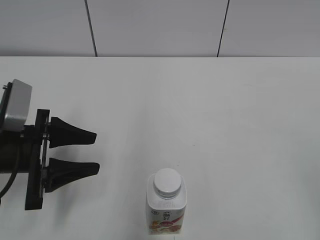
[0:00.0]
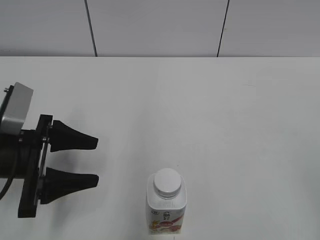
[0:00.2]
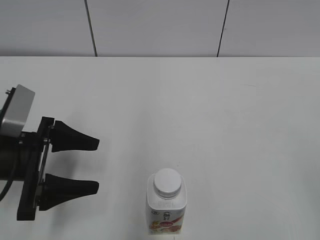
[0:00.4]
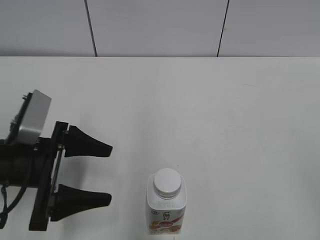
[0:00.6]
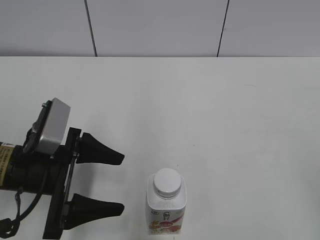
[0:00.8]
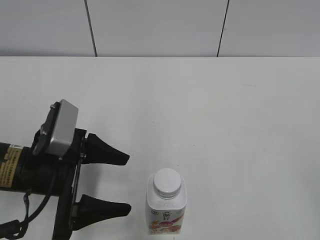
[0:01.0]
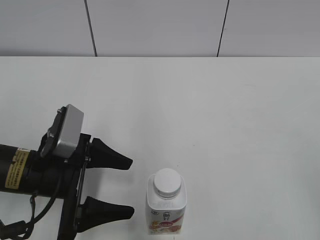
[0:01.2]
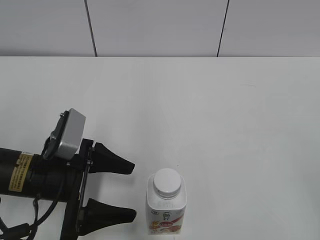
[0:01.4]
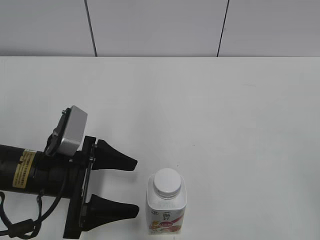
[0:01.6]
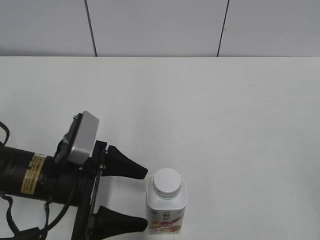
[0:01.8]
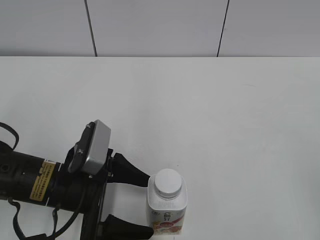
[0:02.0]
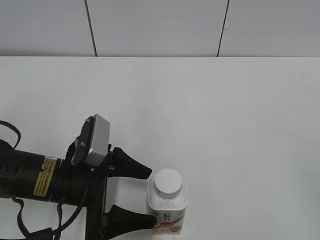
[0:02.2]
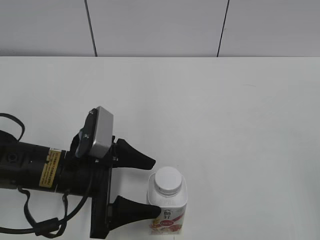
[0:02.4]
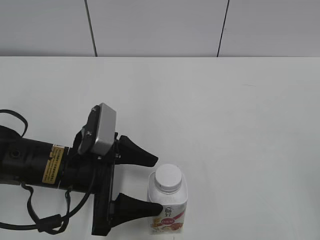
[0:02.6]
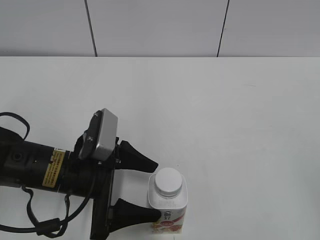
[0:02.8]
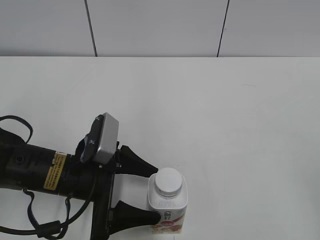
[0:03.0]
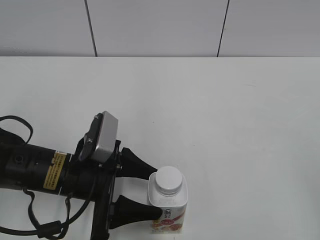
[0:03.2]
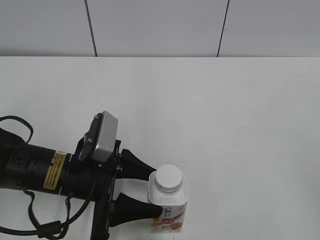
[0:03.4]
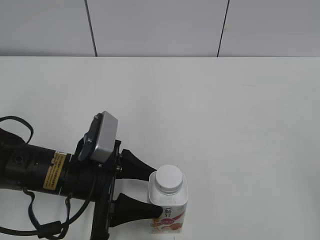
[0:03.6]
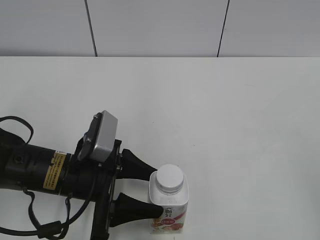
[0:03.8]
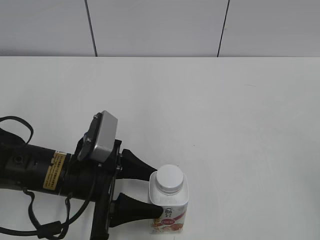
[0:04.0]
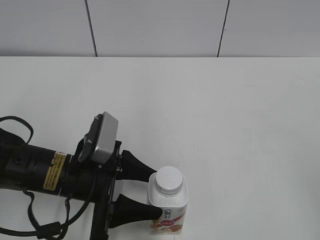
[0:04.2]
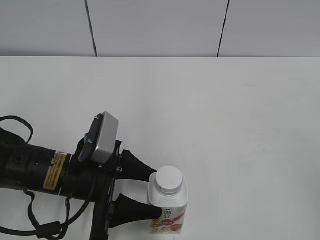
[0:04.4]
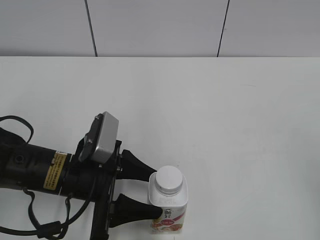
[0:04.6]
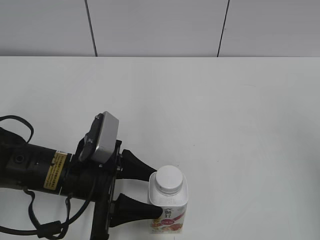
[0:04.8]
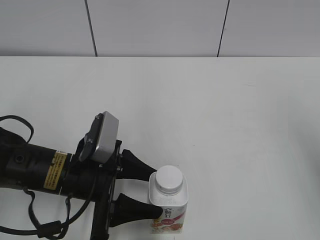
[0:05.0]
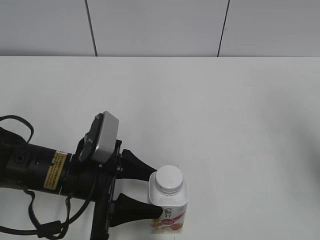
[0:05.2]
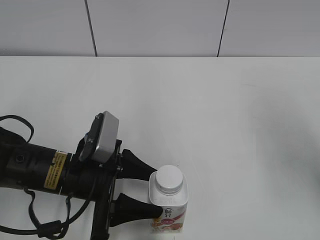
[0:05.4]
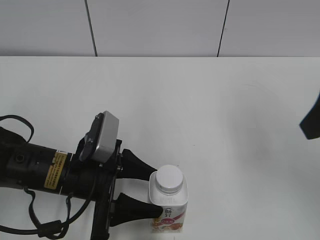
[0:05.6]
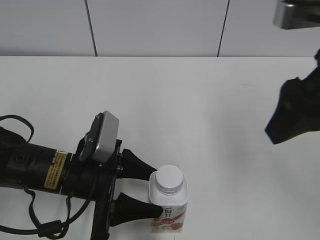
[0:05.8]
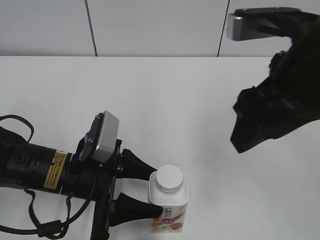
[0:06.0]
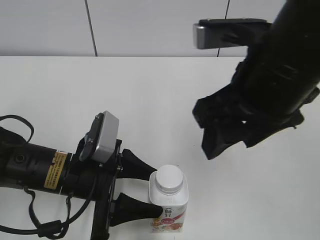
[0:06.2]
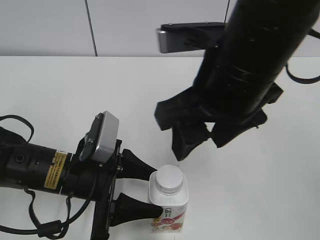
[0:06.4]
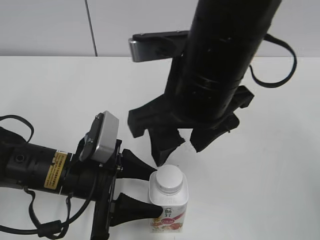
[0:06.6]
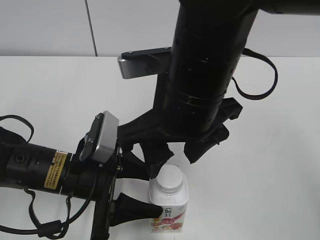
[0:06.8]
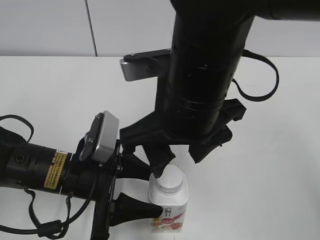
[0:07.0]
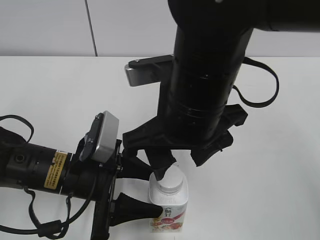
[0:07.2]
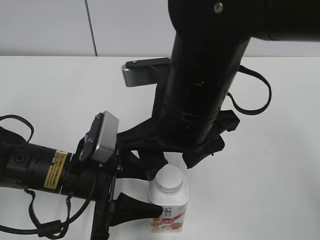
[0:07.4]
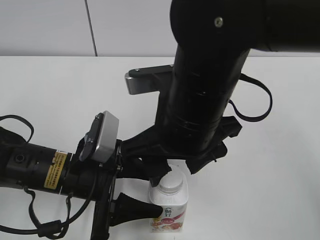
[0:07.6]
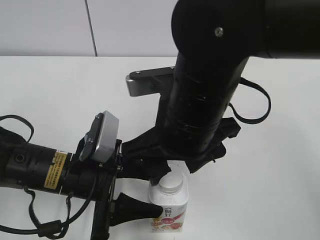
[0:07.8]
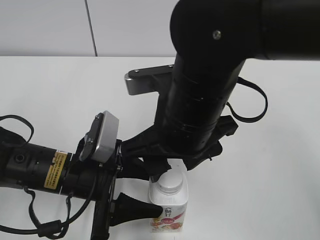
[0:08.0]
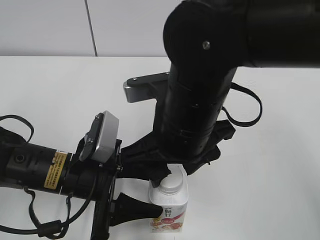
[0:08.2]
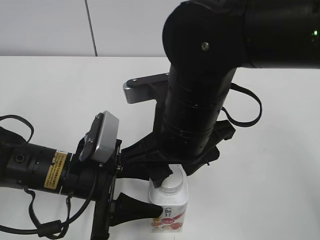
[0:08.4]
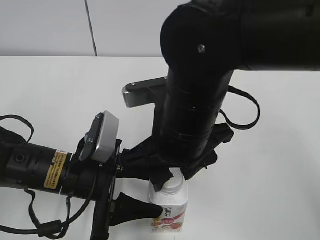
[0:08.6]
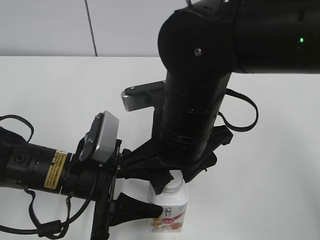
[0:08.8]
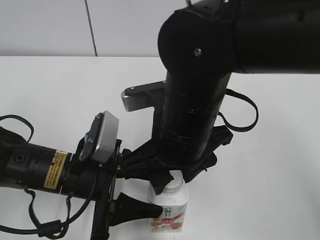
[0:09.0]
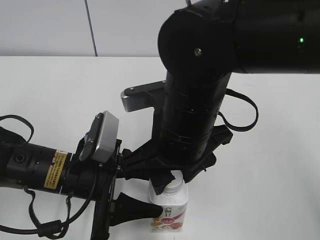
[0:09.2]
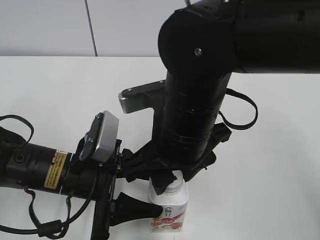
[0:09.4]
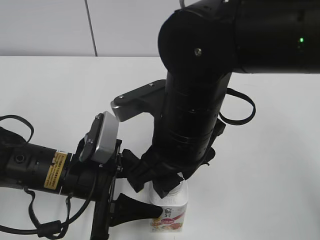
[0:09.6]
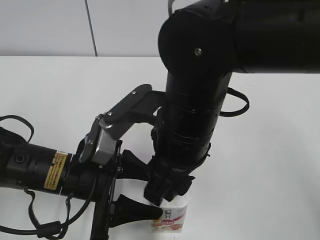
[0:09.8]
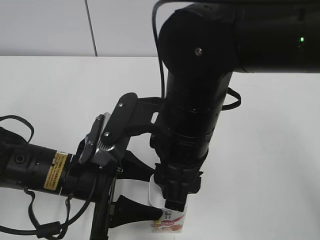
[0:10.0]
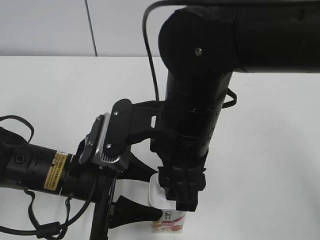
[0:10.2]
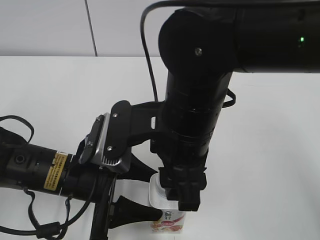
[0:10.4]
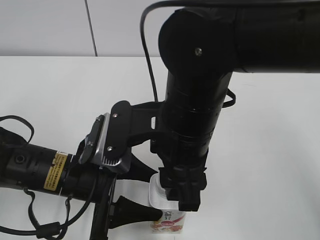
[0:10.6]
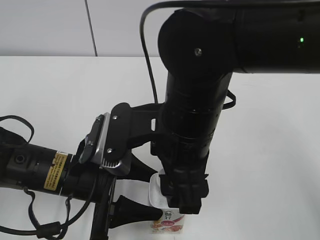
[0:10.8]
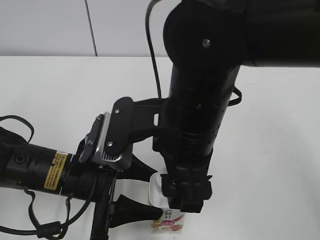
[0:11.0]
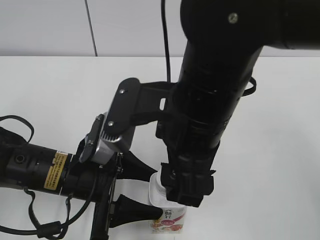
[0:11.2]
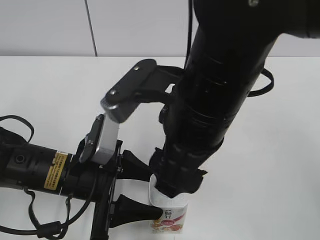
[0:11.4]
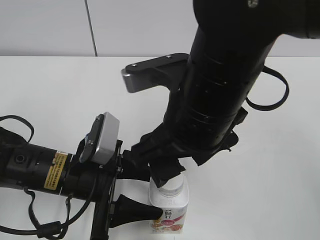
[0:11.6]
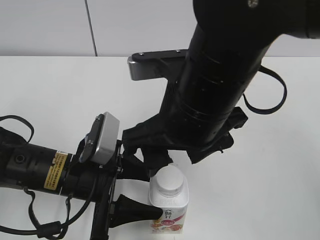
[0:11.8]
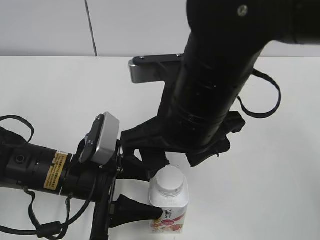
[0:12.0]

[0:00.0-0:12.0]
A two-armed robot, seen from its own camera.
Step, 0:00.0 to 0:03.6: Grab the Yili Changqing with the left hand.
0:00.0 to 0:01.6: The left gripper moves to the right, approximately 5 cm, and opens up.
0:01.6 to 0:03.0: The grippers stay close to where they were, moving slightly.
0:03.0 to 0:04.4: The left gripper closes up.
0:04.4 to 0:06.0: The right gripper moves forward and to the left, roughly 25 cm.
0:06.0 to 0:07.6: The right gripper heads to the left and downward, covering roughly 15 cm.
0:07.6 to 0:09.0: The right gripper closes its fingers.
0:10.4 to 0:12.0: The right gripper opens its fingers.

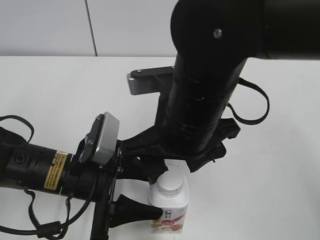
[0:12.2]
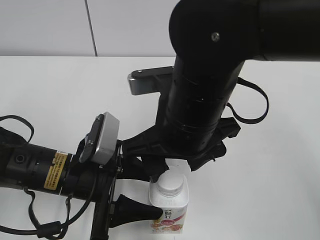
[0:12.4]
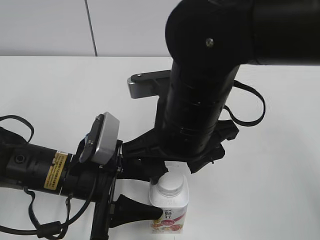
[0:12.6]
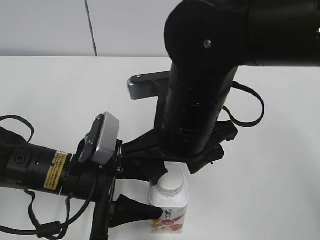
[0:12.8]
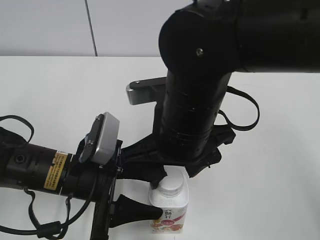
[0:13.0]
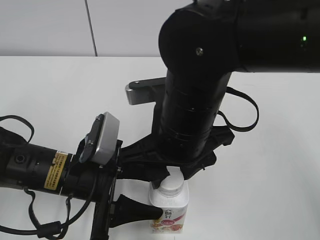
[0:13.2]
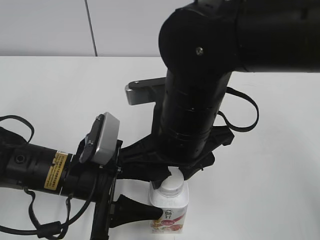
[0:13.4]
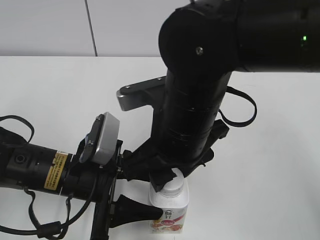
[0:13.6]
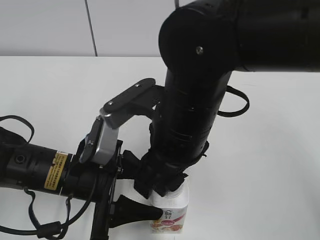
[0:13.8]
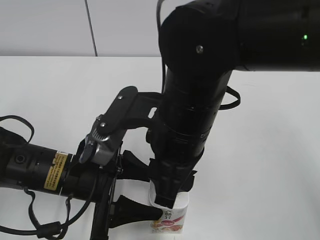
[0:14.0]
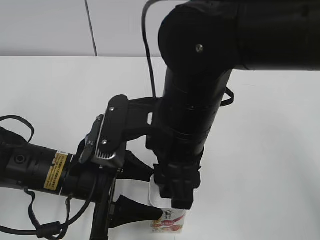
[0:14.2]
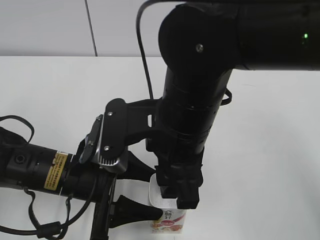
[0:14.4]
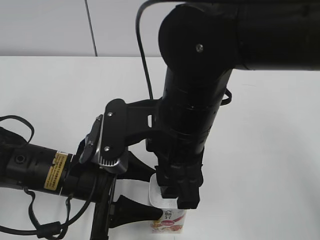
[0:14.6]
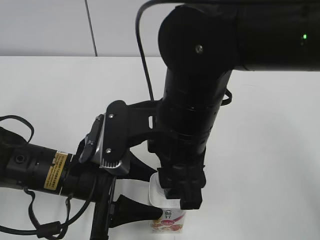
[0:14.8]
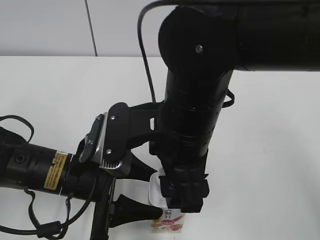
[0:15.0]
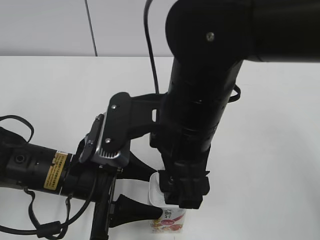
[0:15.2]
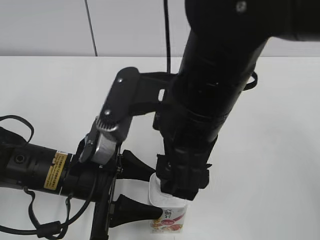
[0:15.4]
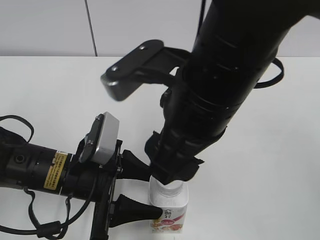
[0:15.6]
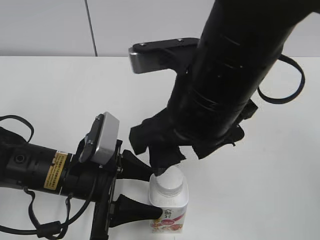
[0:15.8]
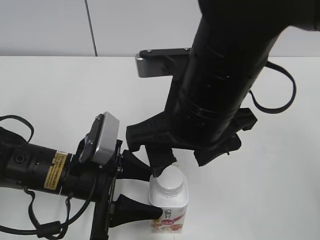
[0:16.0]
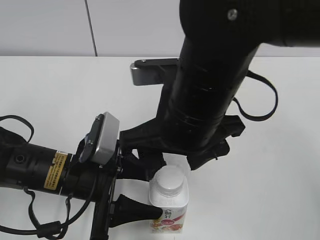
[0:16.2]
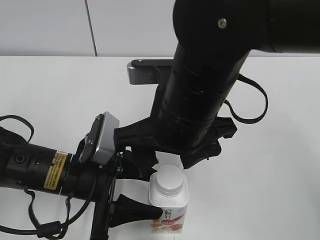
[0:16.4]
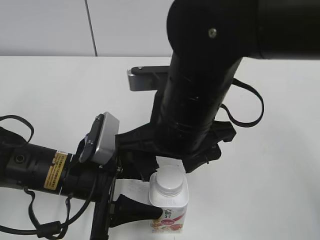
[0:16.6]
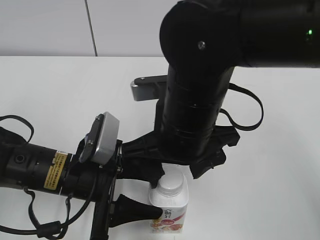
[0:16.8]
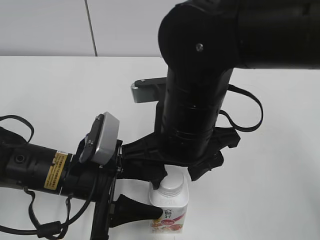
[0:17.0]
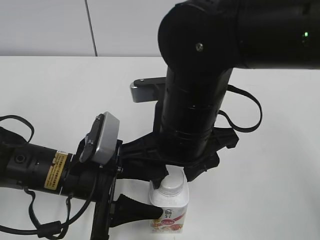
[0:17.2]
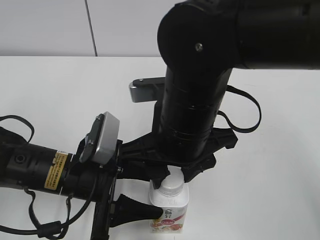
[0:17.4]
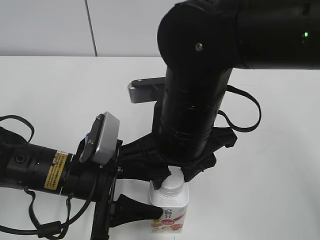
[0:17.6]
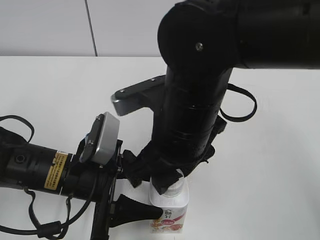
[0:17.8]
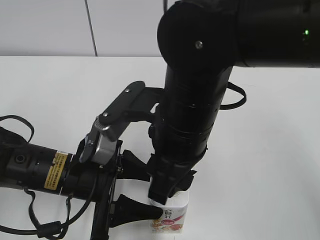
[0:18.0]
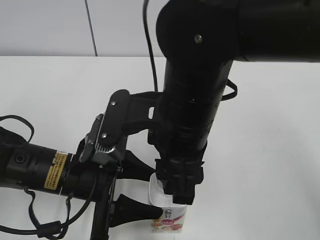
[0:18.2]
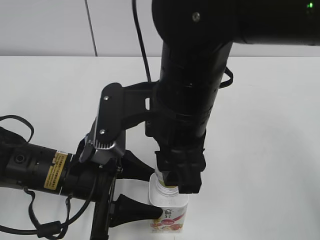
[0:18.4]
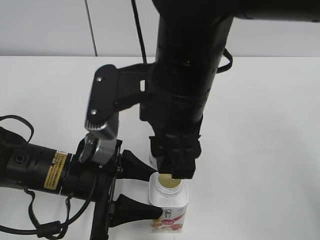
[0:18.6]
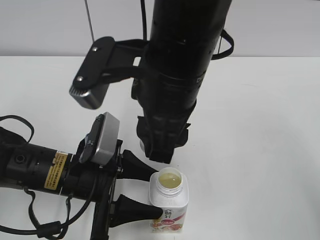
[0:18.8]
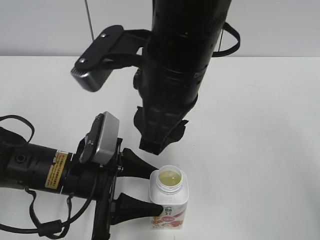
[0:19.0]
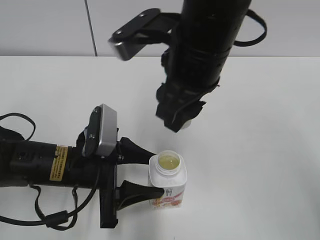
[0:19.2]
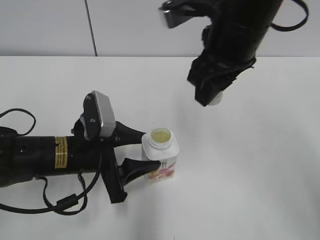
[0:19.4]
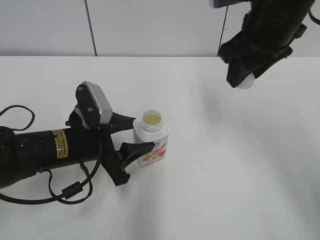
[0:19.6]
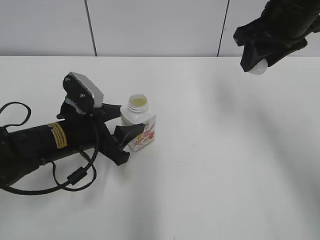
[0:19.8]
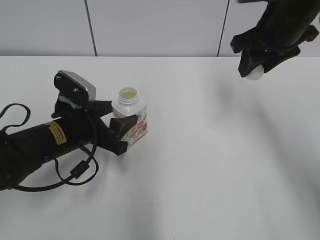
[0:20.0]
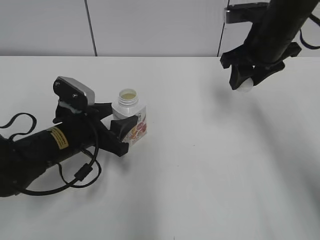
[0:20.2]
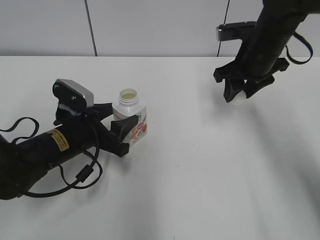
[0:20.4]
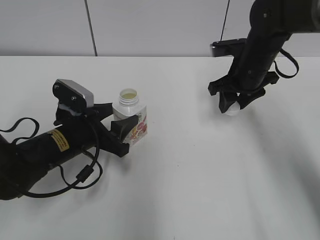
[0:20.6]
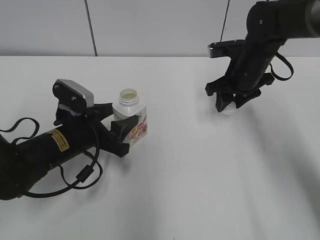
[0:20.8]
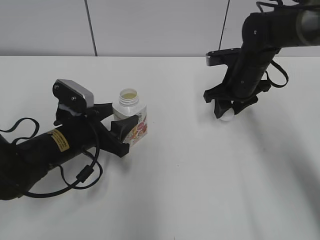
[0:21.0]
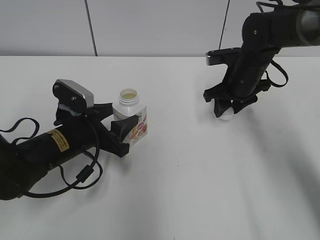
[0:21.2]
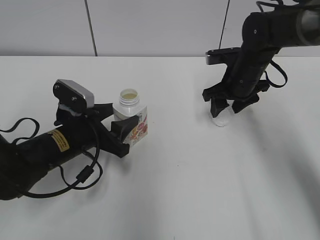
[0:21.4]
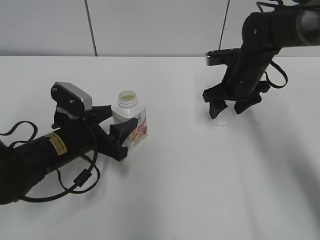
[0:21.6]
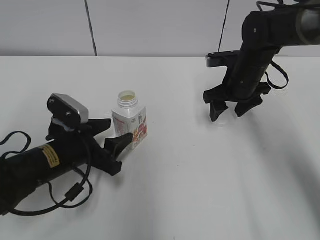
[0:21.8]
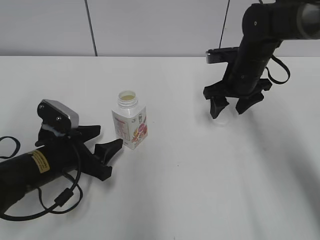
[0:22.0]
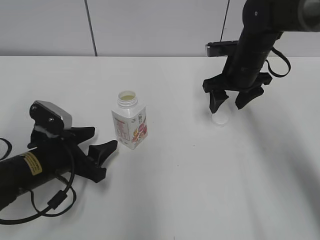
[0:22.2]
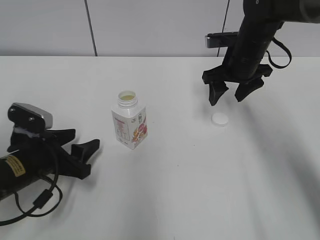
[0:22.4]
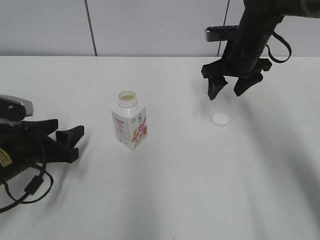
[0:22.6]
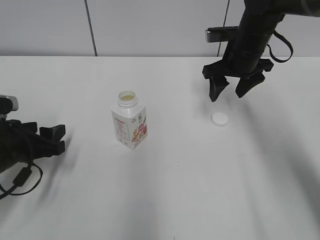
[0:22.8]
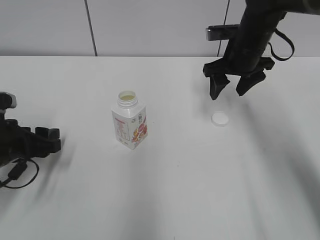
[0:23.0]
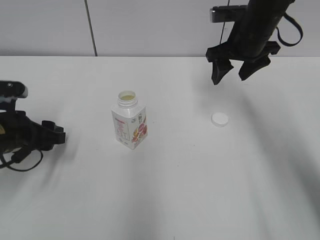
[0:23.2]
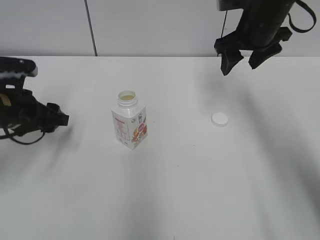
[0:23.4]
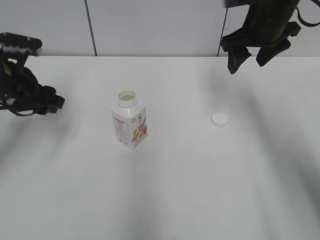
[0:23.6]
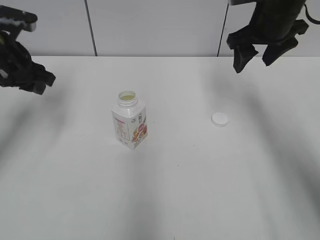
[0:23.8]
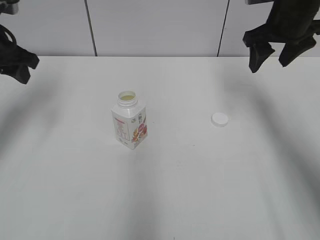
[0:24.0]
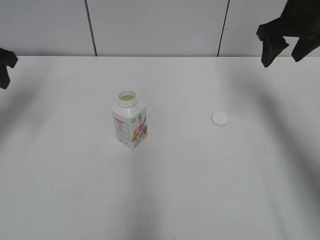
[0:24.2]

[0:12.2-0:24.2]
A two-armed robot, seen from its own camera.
Step, 0:12.2 to 0:18.6: Twist the bottle cap with the right hand.
Step, 0:18.8 to 0:20.4: Move the Yili Changqing from bottom to top.
0:12.2 to 0:13.8: The right gripper closes up.
0:13.8 to 0:15.2: The right gripper opens up.
0:16.6 to 0:18.2: The right gripper closes.
0:18.2 to 0:19.8: The left gripper is displaced forward by roughly 5 cm. Meanwhile the right gripper heads to the right, forward and upward, covering approximately 20 cm.
0:19.8 to 0:21.2: The right gripper heads downward and forward, covering roughly 15 cm.
0:21.2 to 0:22.6: The left gripper goes approximately 10 cm to the left. The right gripper changes place by about 5 cm, and opens its fingers.
0:22.6 to 0:24.2: The right gripper travels upward and to the right by approximately 10 cm. Meanwhile the left gripper goes some 20 cm upward, forward and to the left.
